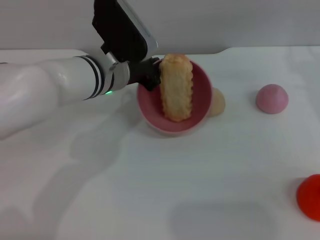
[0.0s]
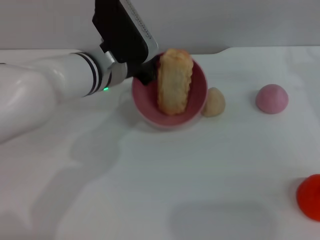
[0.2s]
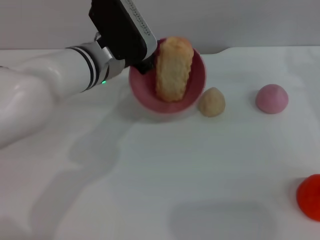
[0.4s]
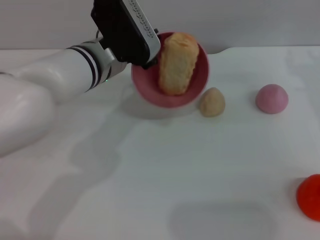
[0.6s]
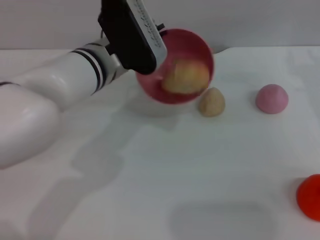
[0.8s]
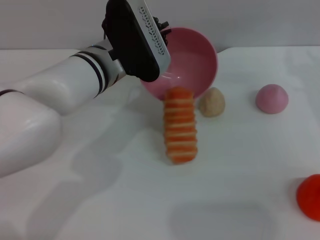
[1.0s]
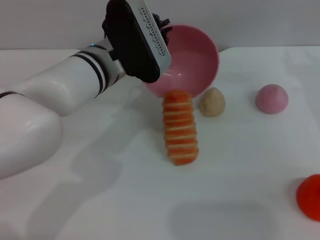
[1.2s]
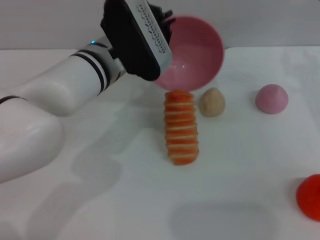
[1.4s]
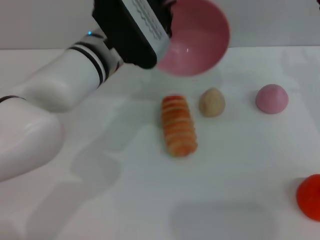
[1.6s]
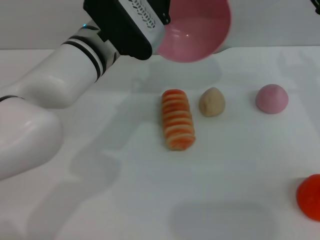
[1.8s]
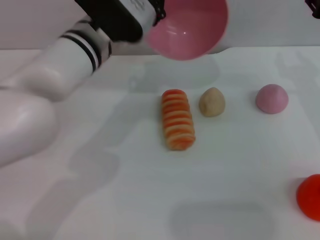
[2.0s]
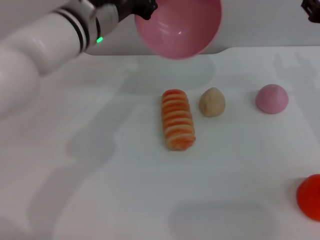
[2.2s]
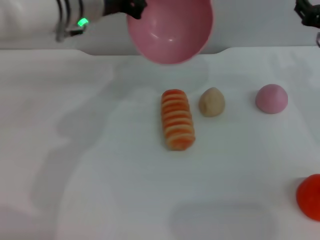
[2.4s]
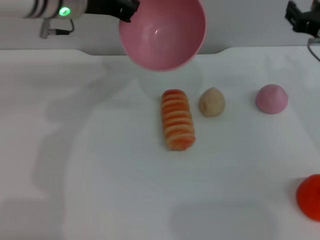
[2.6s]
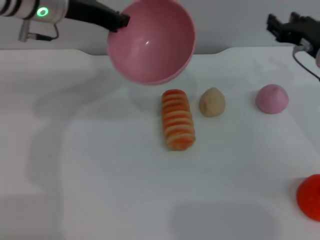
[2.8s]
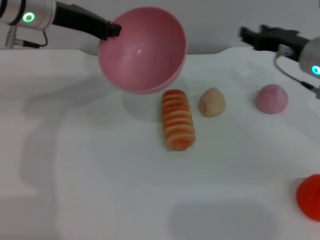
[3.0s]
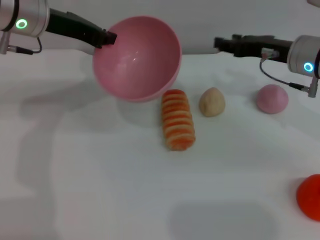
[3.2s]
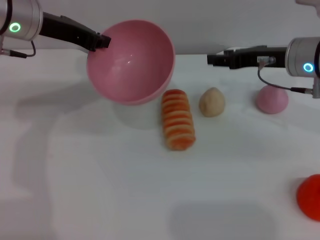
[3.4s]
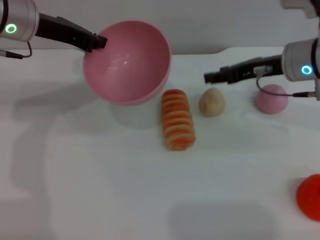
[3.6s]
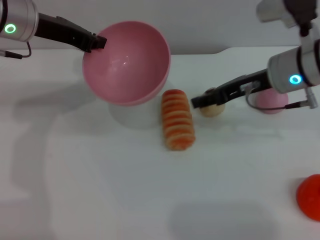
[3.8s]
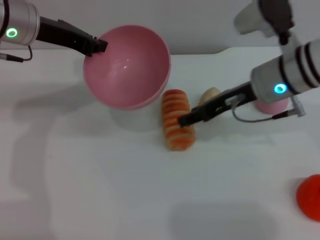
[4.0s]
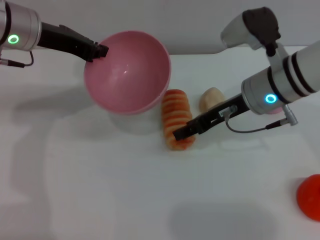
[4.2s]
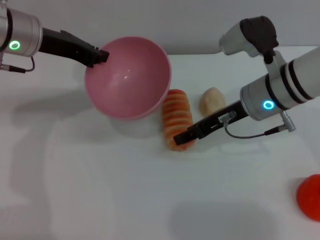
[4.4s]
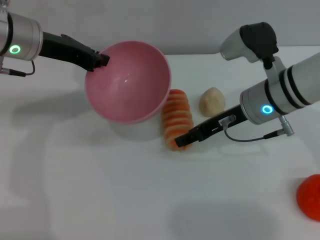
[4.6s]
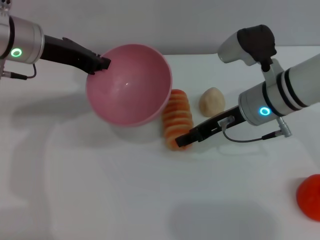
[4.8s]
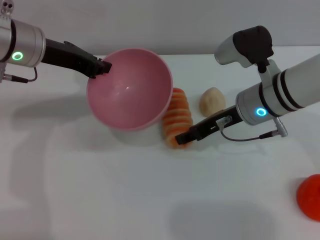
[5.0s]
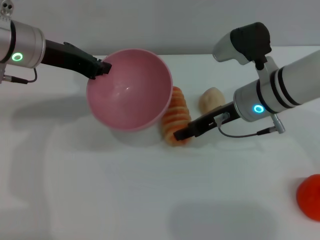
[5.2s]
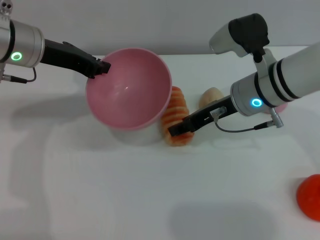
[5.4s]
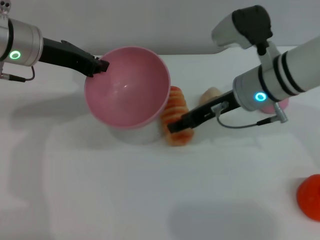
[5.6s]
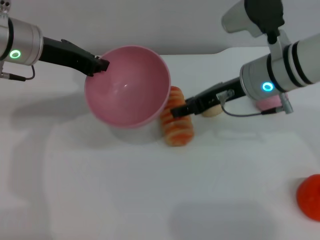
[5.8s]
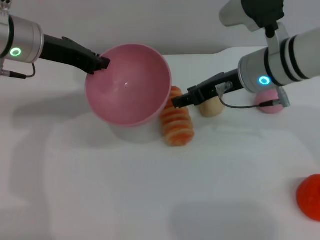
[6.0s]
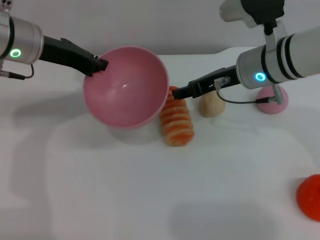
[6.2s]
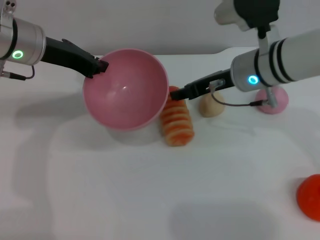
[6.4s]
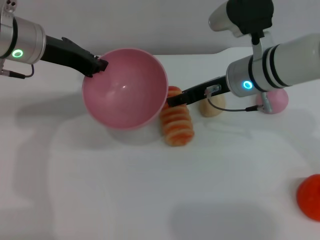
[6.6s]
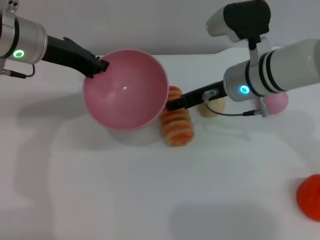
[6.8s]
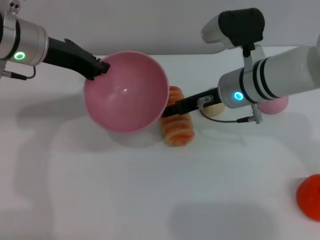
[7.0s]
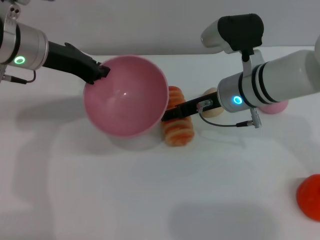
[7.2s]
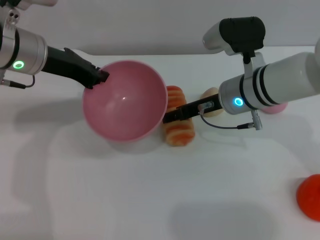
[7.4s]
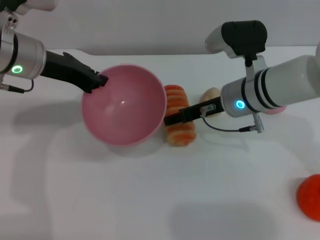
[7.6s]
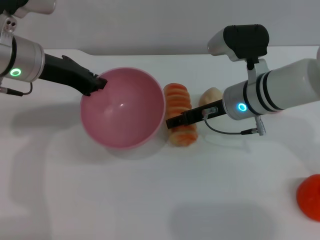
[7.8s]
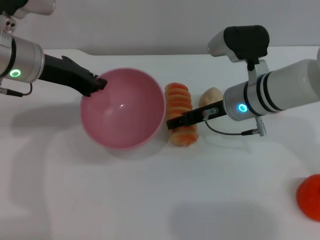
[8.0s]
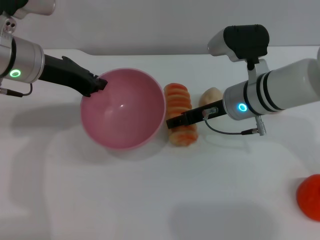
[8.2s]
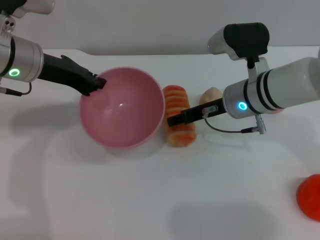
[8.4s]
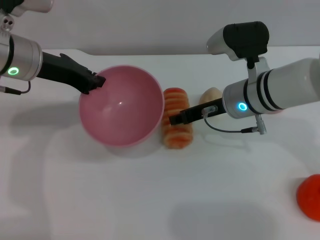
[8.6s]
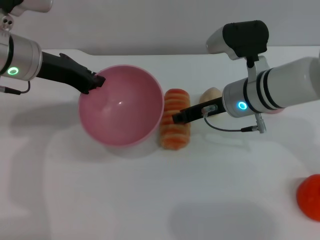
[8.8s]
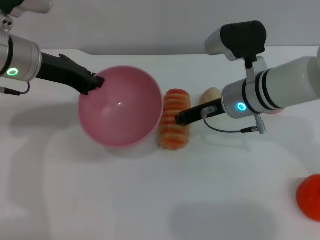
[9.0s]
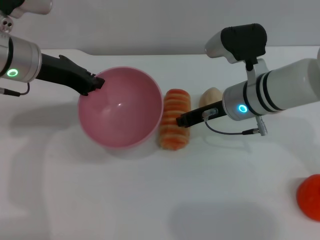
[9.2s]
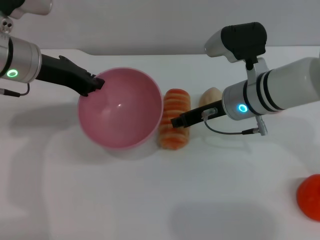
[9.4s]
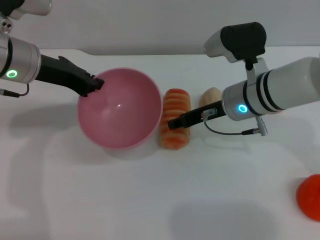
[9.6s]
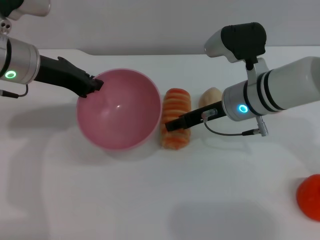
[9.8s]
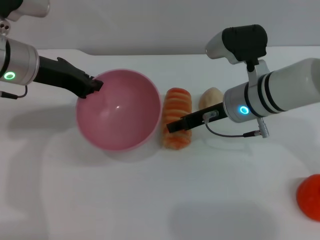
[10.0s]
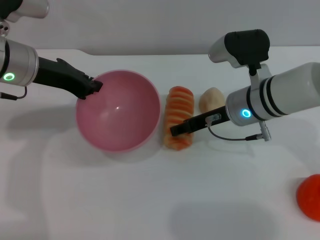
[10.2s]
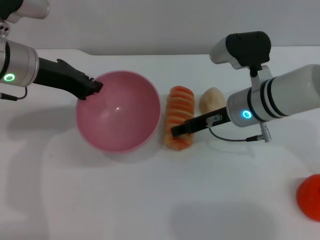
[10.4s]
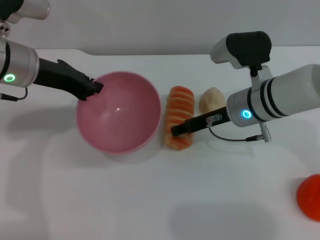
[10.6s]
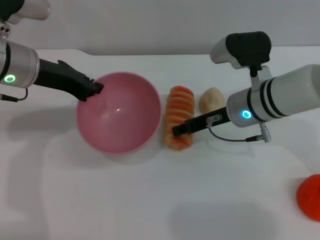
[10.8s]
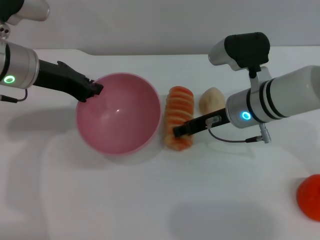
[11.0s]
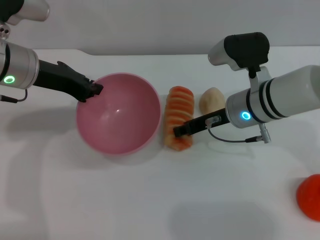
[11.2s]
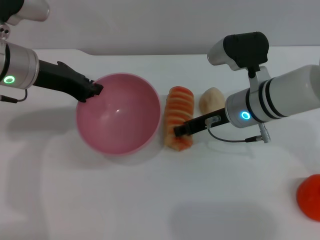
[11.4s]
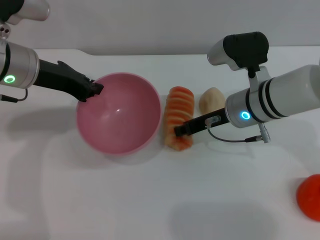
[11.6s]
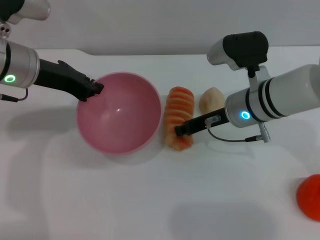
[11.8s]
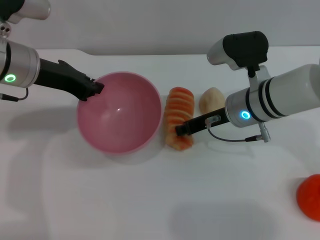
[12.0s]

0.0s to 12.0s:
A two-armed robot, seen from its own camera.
Task of the whole recording: put the bread into the pink bowl and pour it out repeatedly.
1.6s to 3.0s: The right gripper changes place by approximately 5 cm. Meanwhile the left gripper moves to the left, upward and forward, some 15 cm.
3.0s to 4.4s: The right gripper heads to the left, covering about 10 cm.
4.4s to 6.0s: There are only small adjustments of the grippers.
6.0s to 7.6s: The right gripper travels downward by approximately 5 cm.
7.6s to 9.0s: The right gripper closes.
9.0s to 10.4s: The right gripper opens.
10.4s to 12.0s: The right gripper closes up.

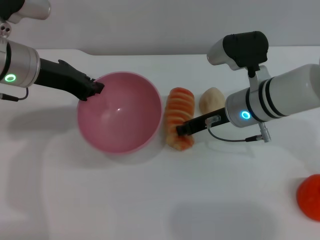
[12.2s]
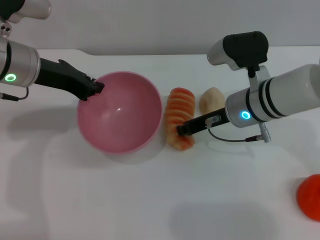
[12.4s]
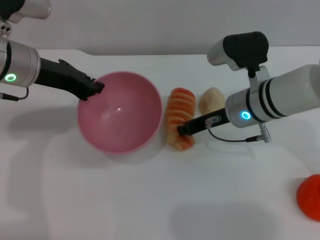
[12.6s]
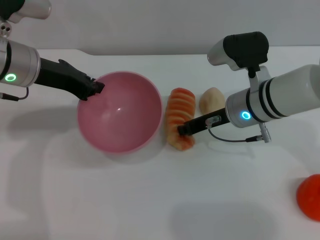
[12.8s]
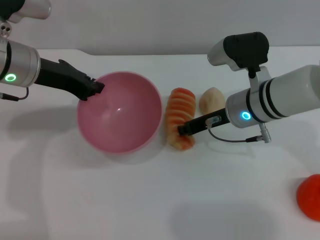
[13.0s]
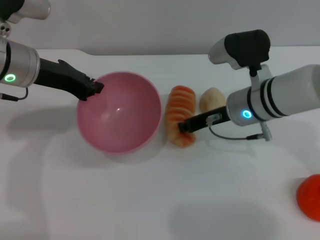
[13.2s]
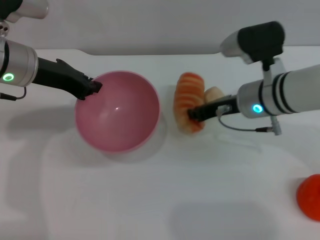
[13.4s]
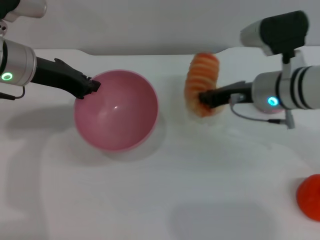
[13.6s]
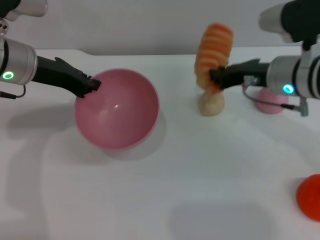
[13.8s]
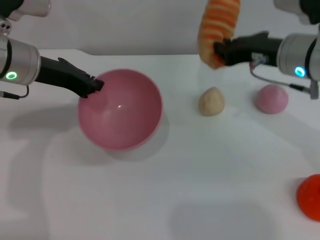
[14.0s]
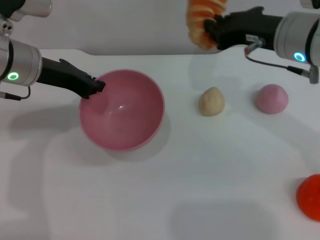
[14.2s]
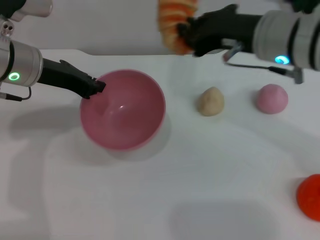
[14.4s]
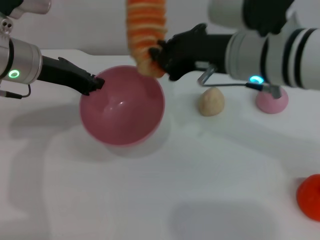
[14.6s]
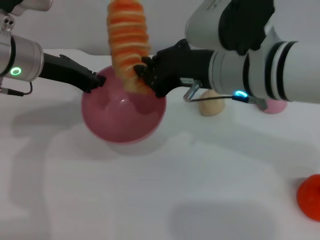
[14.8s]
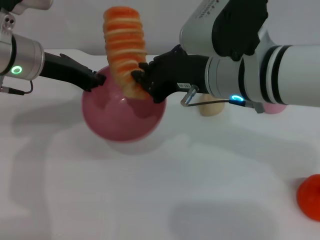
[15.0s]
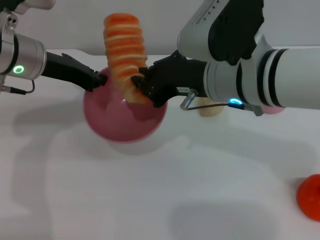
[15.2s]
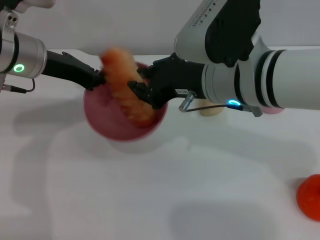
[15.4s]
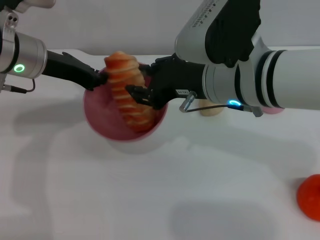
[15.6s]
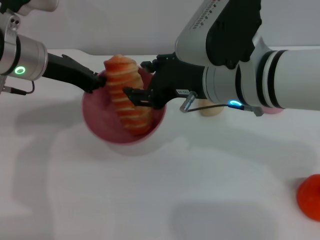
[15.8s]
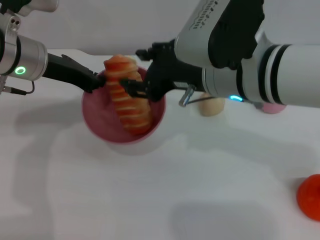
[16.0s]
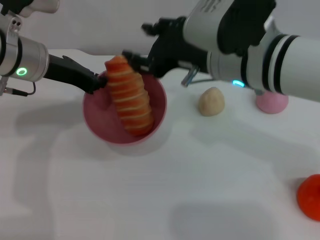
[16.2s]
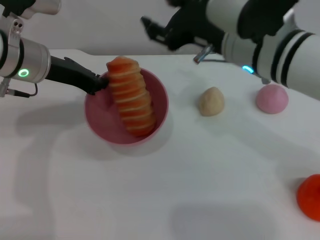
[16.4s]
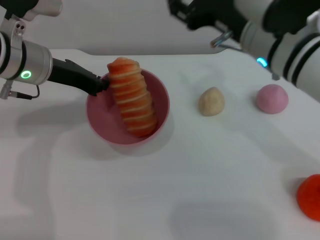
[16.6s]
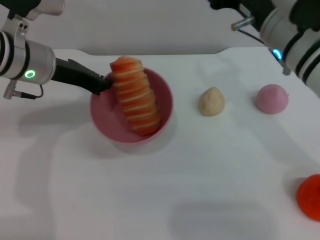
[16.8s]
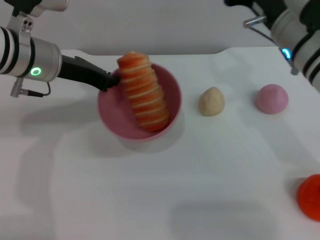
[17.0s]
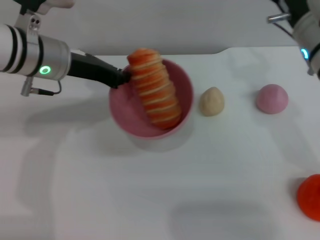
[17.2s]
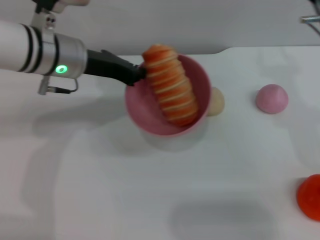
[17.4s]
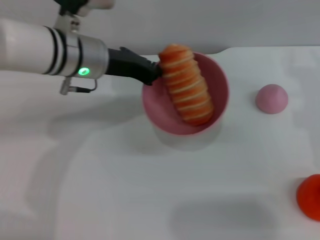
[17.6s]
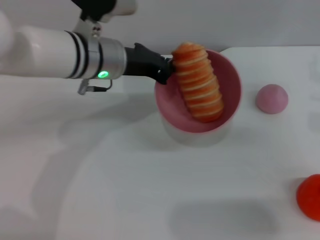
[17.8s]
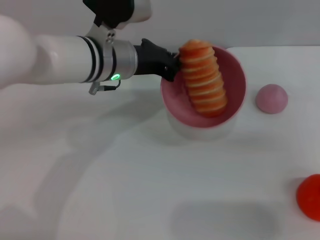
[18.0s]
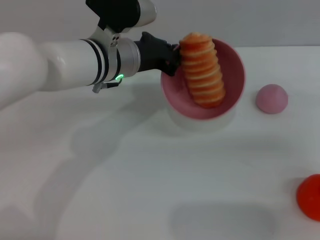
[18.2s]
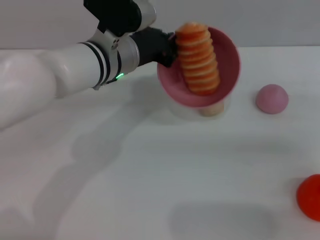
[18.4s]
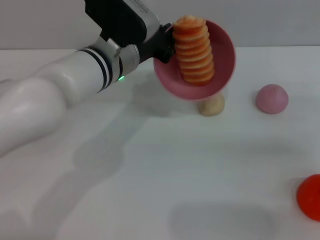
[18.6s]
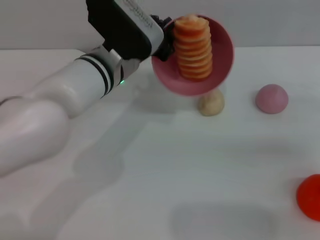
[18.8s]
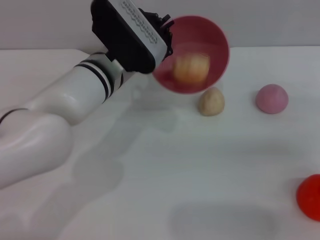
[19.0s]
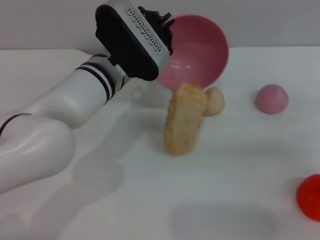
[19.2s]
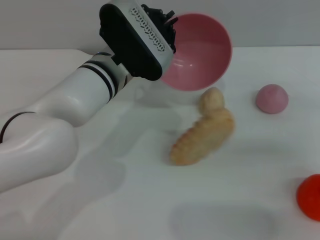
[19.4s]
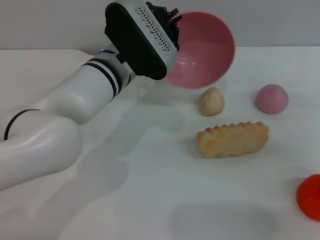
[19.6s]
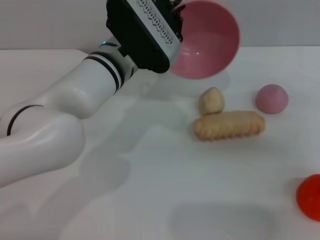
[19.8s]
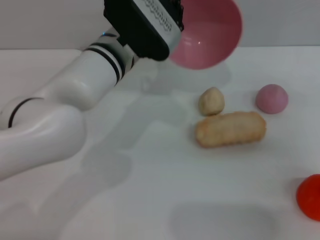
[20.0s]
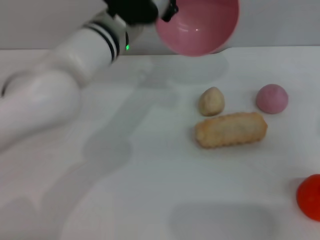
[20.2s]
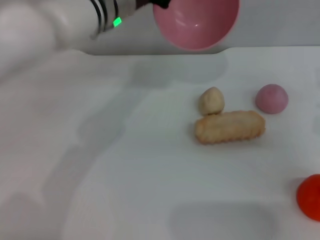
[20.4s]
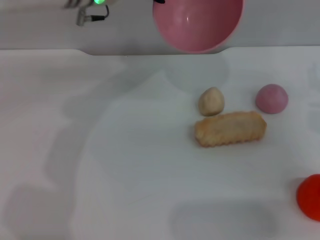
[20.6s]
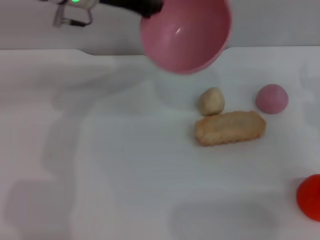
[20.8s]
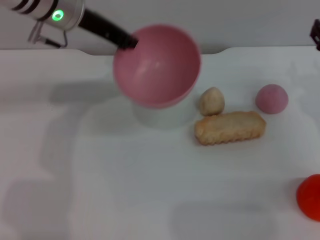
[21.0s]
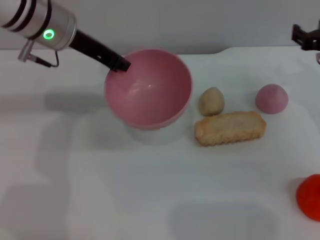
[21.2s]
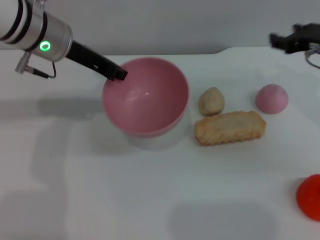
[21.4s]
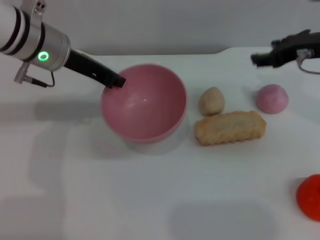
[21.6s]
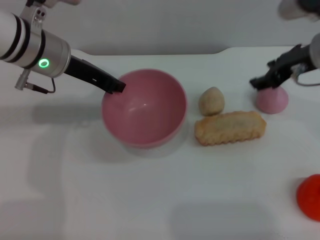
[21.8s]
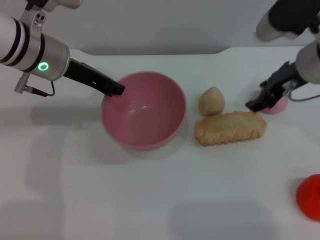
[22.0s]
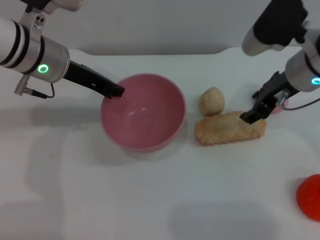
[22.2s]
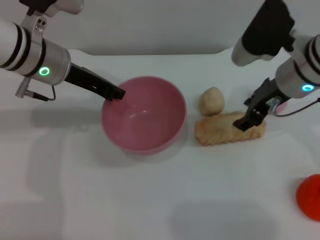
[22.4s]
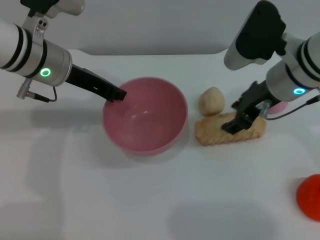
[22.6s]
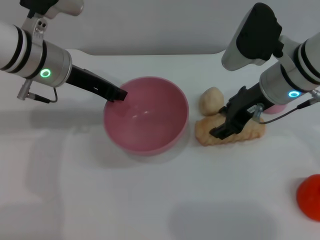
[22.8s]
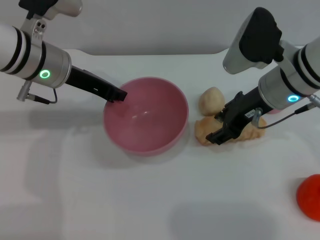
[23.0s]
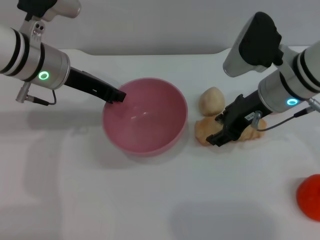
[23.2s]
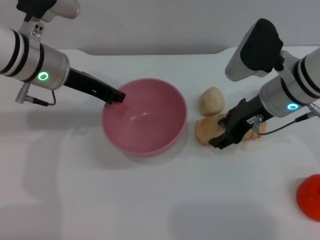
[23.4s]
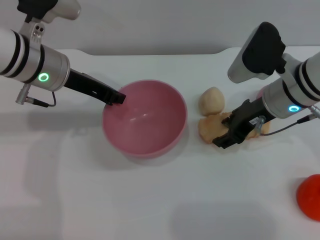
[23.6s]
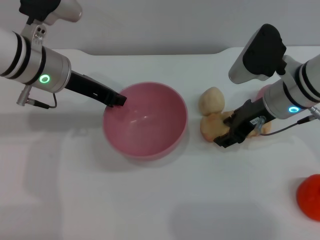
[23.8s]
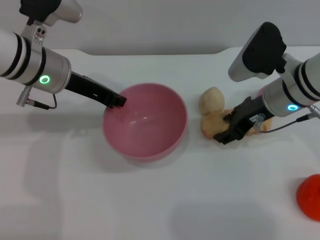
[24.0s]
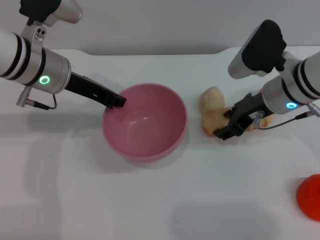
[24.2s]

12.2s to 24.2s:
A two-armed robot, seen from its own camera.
Task of the whole recording: put the bread into the pink bowl and pour it out repeatedly.
Step, 14.0s to 16.2s: Place the bread into the bowl.
Step, 16.4s to 20.0s: Pour the bread out of the bowl.
12.2s to 13.8s: The right gripper shifts some 5 cm upward.
13.8s to 15.2s: The right gripper moves to the left, backward and upward, roughly 10 cm.
15.2s to 16.6s: The right gripper opens.
16.6s to 18.2s: The right gripper travels to the right by about 20 cm. Meanwhile the left gripper moves to the right, approximately 10 cm.
19.8s to 21.2s: The left gripper travels to the left and upward by approximately 10 cm, while the right gripper moves forward, roughly 5 cm.
21.2s to 22.6s: The left gripper ends up roughly 5 cm from where it was. Meanwhile the right gripper heads to the left, covering roughly 10 cm.
22.6s to 24.2s: The grippers move only a little.
